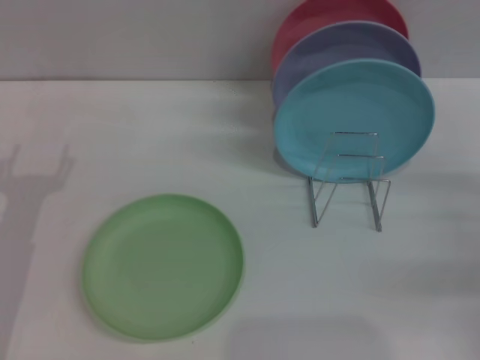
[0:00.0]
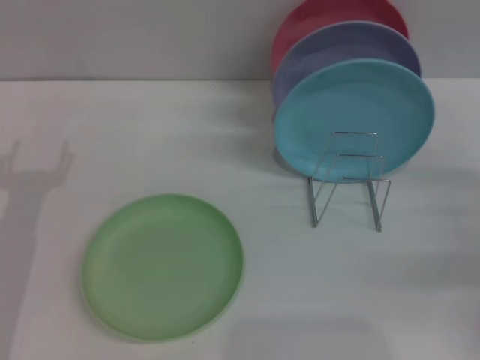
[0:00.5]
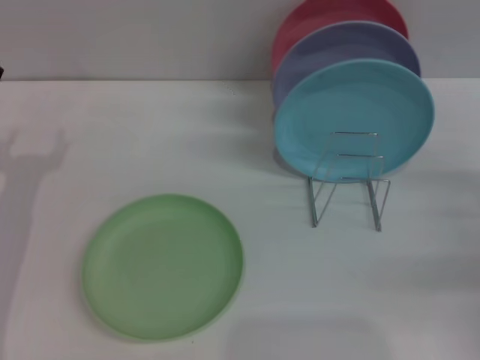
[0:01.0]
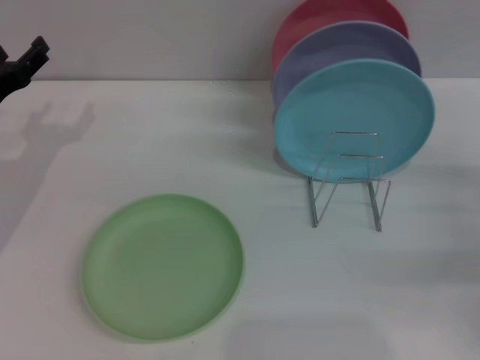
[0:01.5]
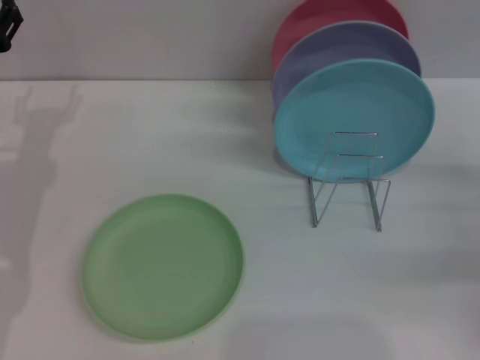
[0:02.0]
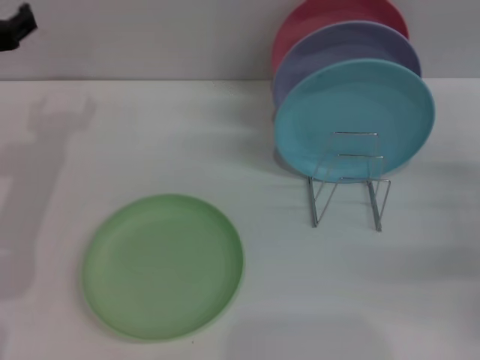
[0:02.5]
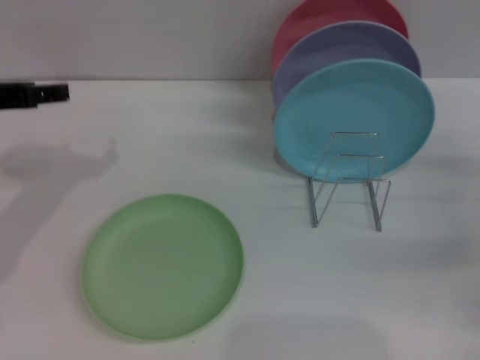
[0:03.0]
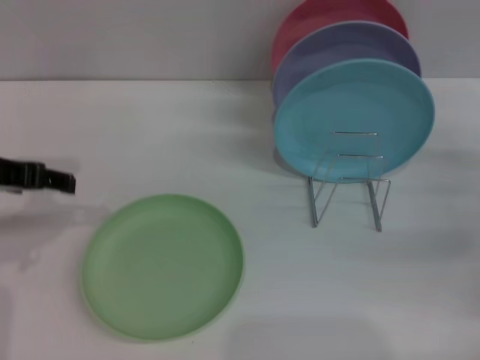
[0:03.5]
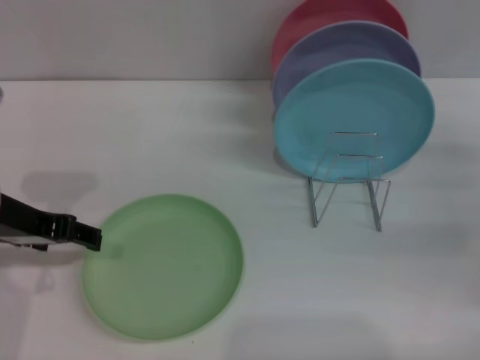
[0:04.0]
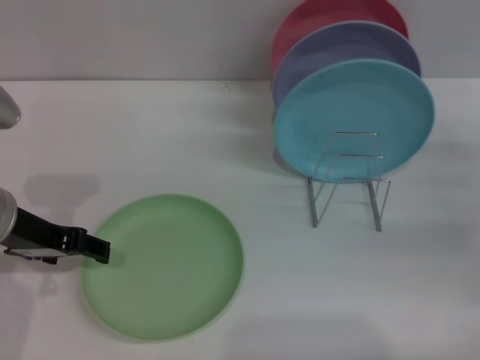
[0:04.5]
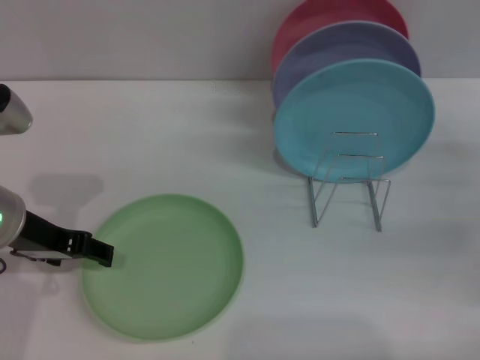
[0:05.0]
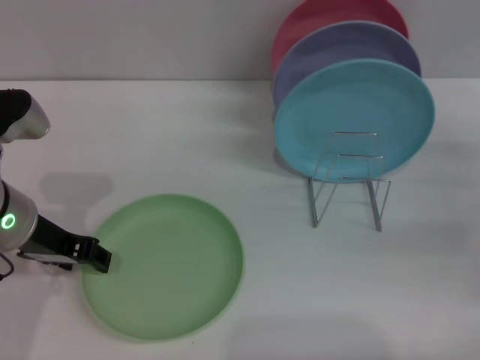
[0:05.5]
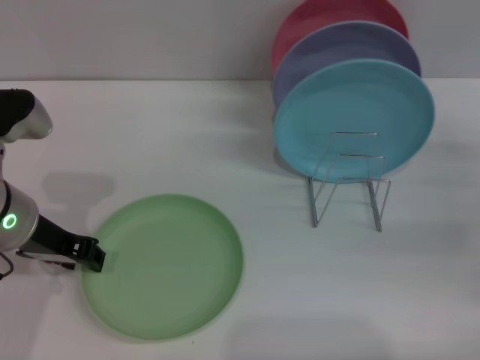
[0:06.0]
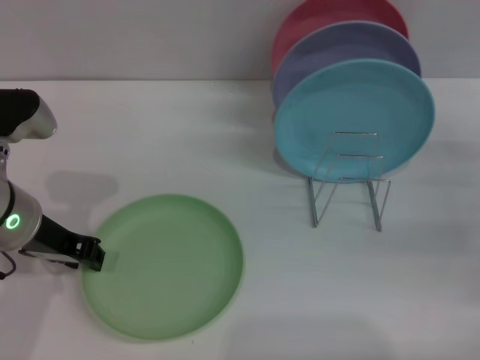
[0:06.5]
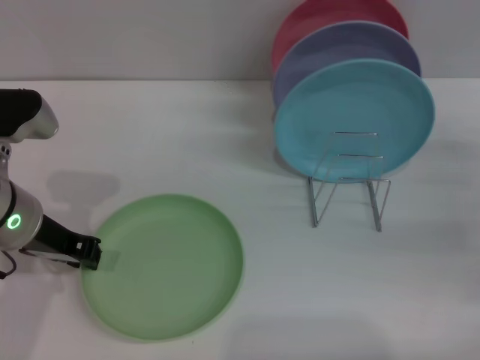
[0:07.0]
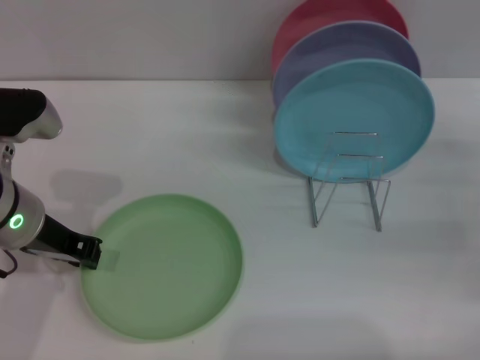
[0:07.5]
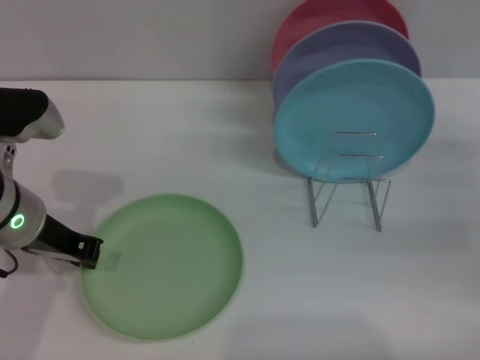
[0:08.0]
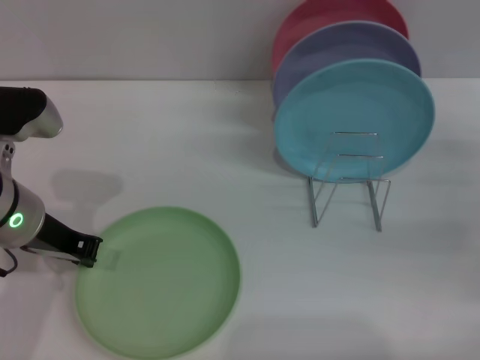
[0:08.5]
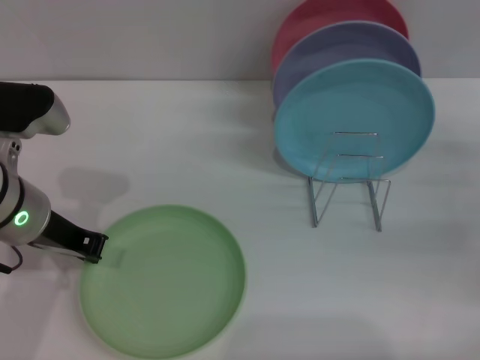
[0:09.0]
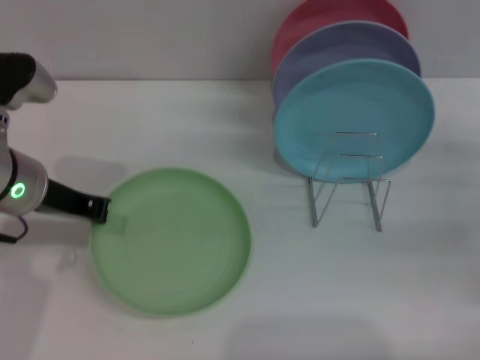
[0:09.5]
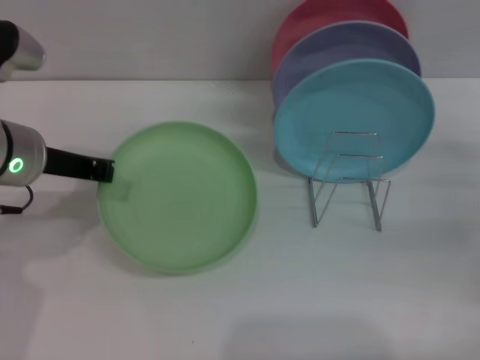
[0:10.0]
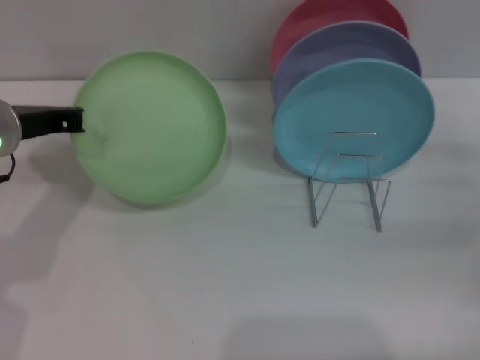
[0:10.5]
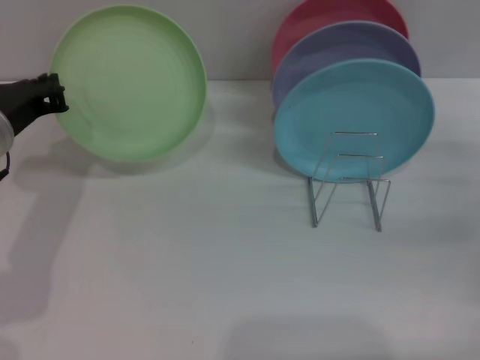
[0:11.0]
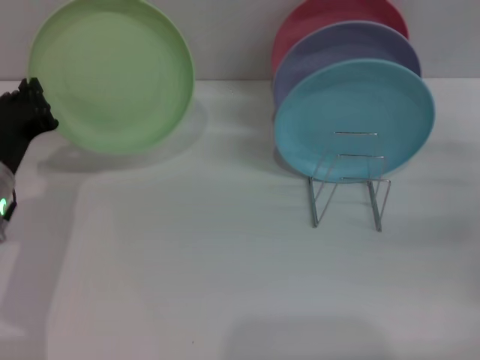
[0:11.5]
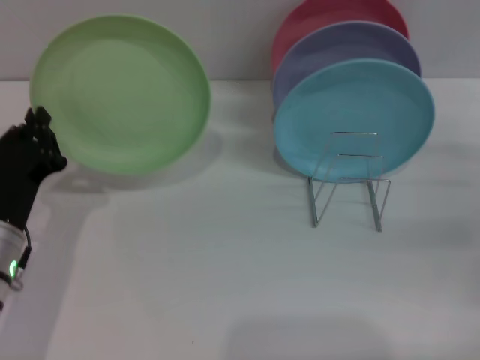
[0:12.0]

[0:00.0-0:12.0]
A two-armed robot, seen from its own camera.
Task of the whole recording: Grip the plate with one hand, pass it to the other, then set it on the shelf.
Step, 0:00.0 to 0:09.5: Pick up the plate with the left gripper.
0:02.0 to 0:04.0: The left gripper goes roughly 10 cm backward and upward.
0:04.0 to 0:06.0: The left gripper closes up.
0:06.0 to 0:08.0: The left gripper closes.
0:10.0 to 0:12.0: The left gripper travels downward and backward by approximately 15 cm.

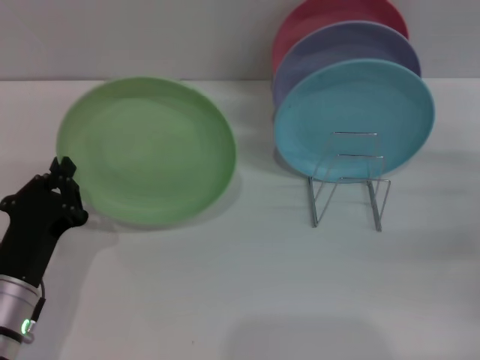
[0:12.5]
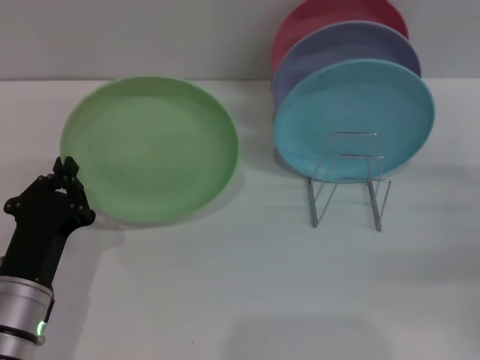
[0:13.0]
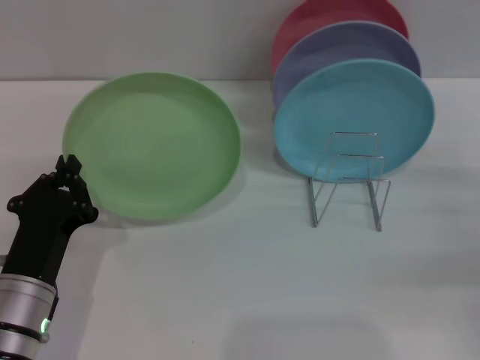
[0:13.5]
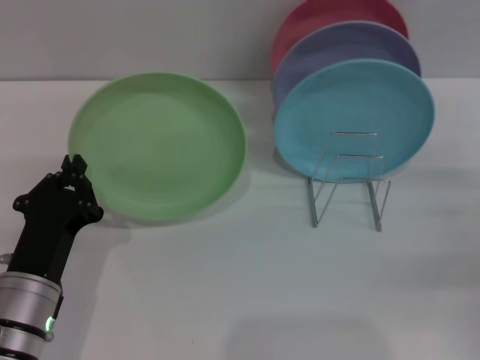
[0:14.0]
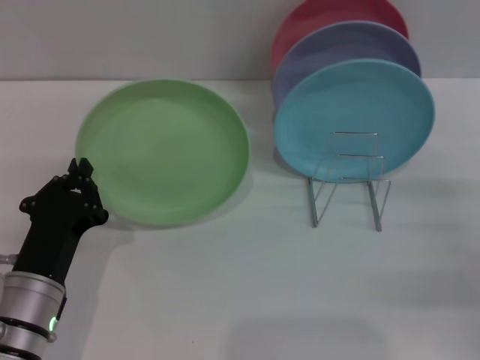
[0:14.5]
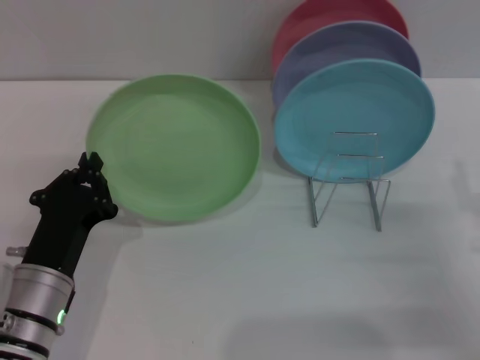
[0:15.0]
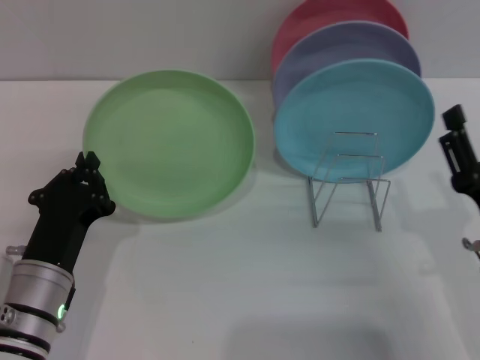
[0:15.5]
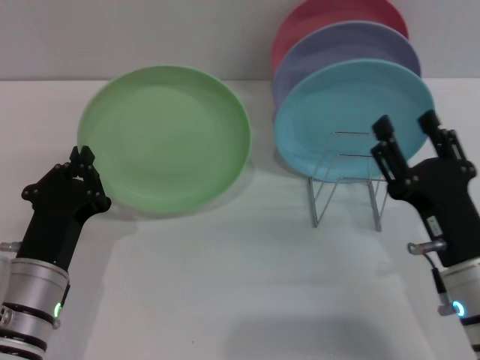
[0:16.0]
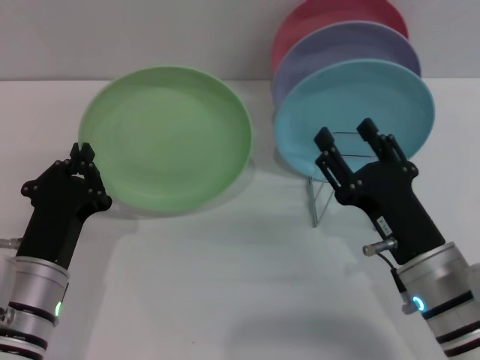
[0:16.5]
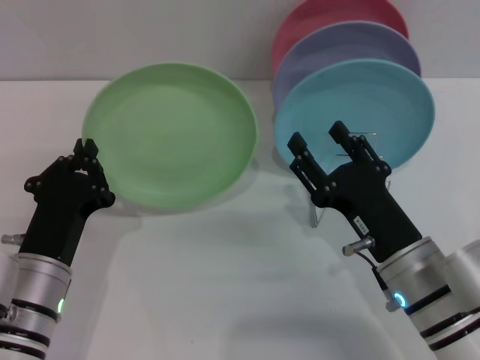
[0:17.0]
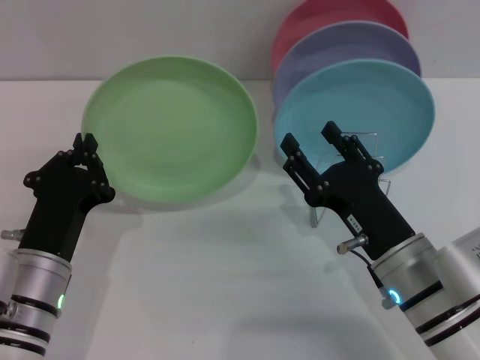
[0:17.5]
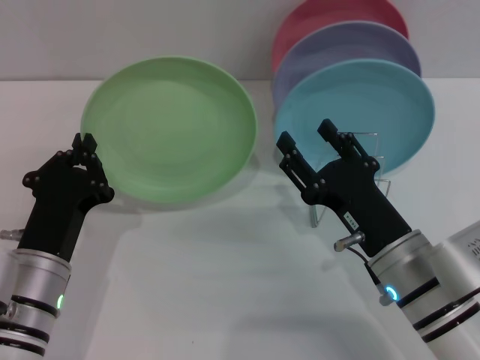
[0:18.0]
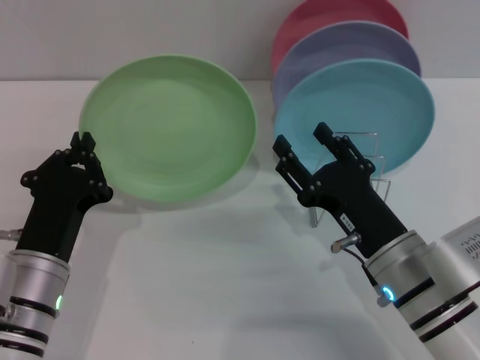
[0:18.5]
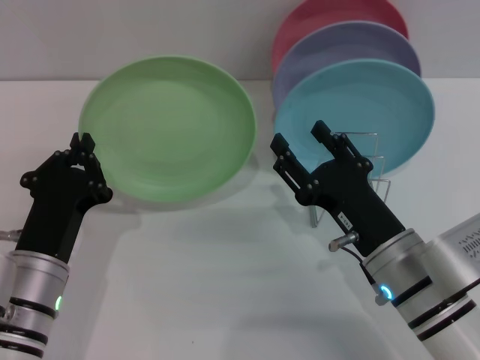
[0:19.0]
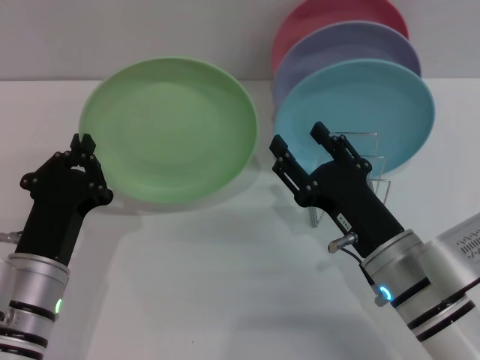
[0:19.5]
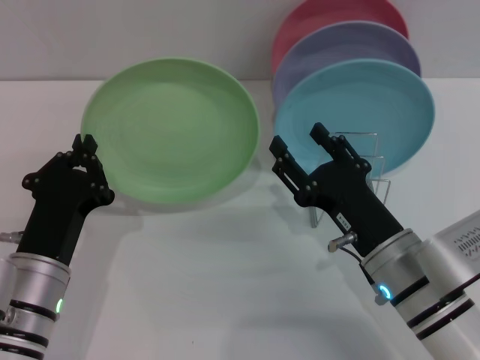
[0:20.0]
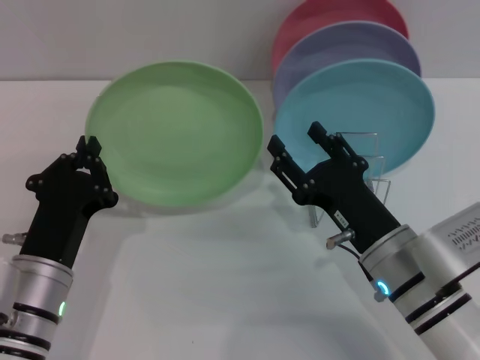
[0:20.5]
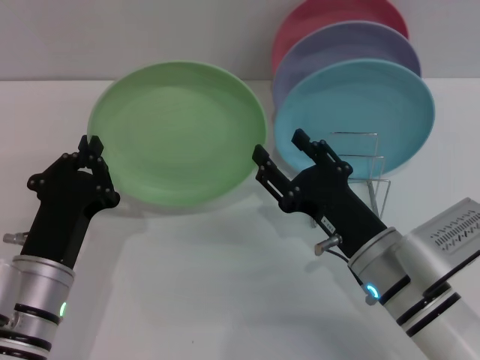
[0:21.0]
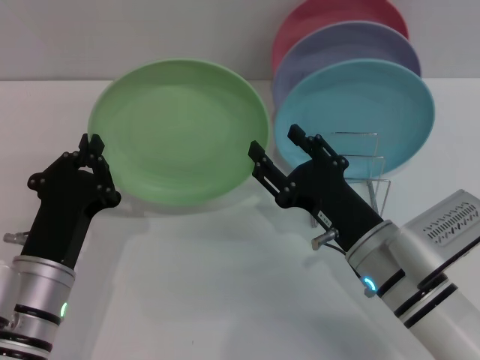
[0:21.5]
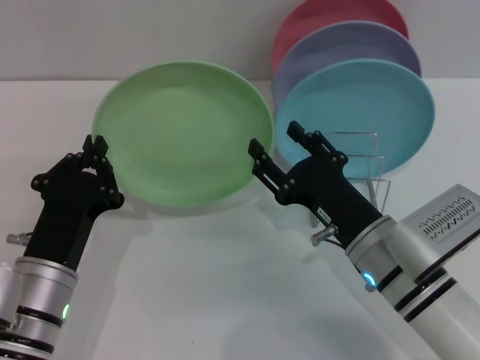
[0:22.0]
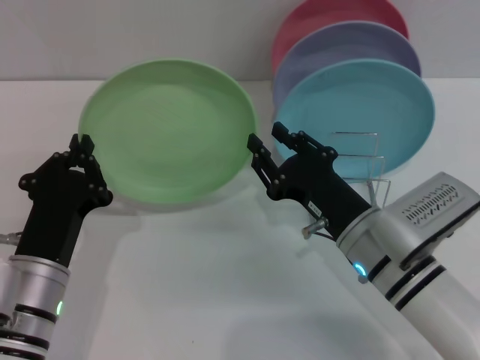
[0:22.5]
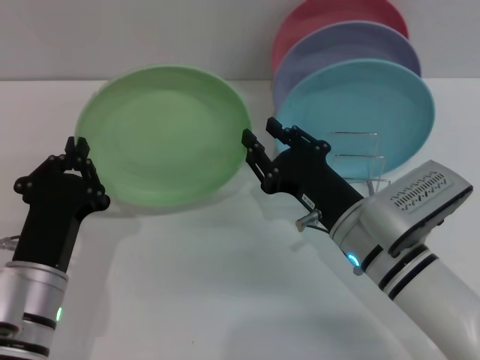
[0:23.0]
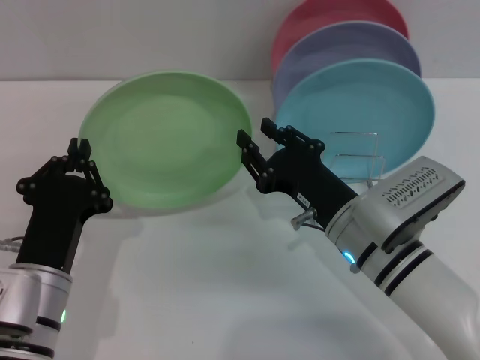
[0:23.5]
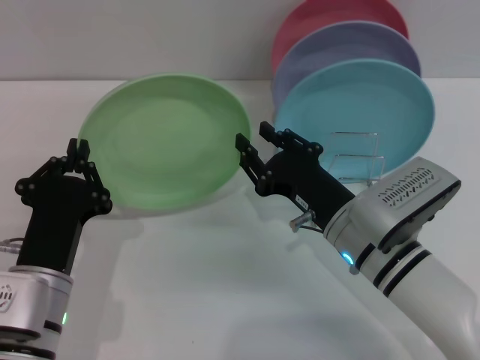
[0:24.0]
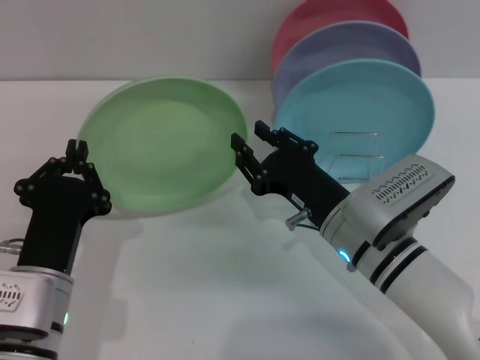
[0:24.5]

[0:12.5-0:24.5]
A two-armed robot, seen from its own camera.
Task of the whole recording: Grip the plate with one hand, pass it to the other, then set it on the shelf.
0:12.5 to 0:14.5: The right gripper changes place by some 5 cm.
0:14.5 to 0:16.5: The right gripper heads to the left, covering some 15 cm.
0:16.5 to 0:18.5: The grippers stay close to where they were, moving slightly.
0:18.5 to 0:20.5: Both grippers stay put.
0:20.5 to 0:24.5: There are only small adjustments of the grippers.

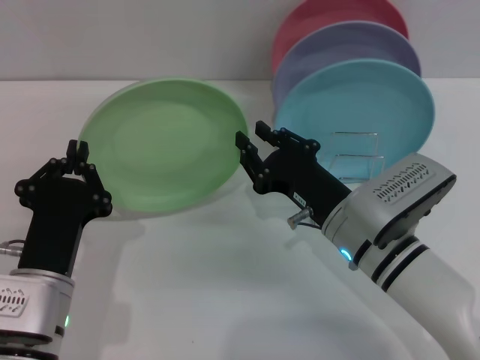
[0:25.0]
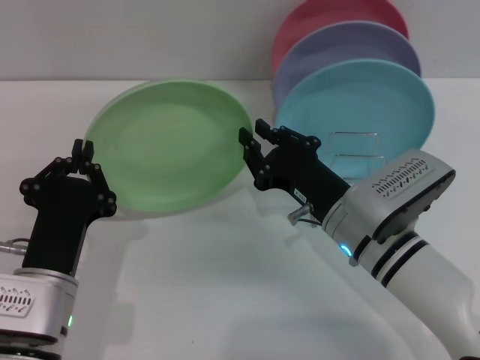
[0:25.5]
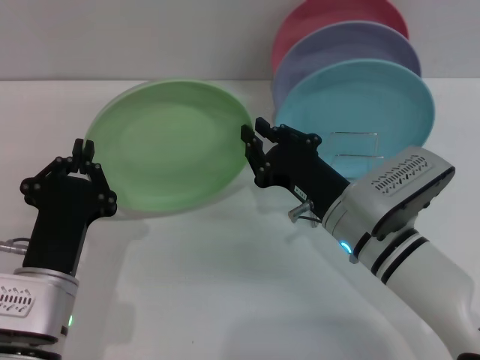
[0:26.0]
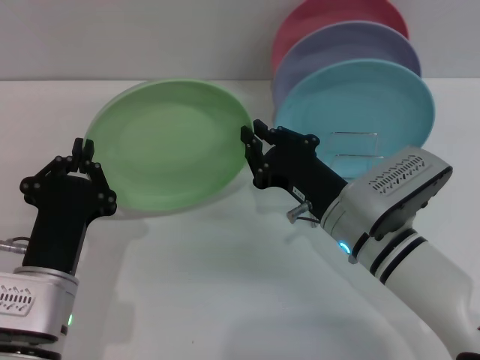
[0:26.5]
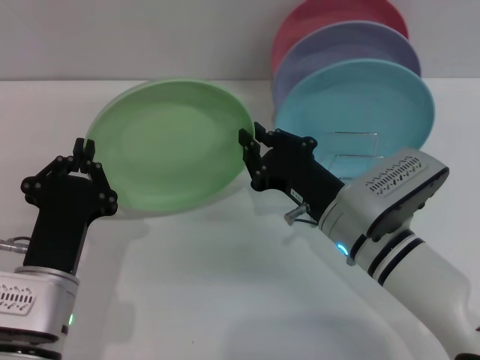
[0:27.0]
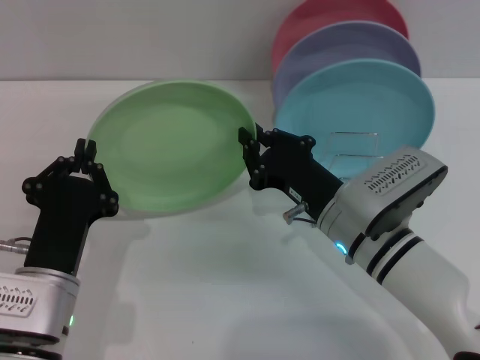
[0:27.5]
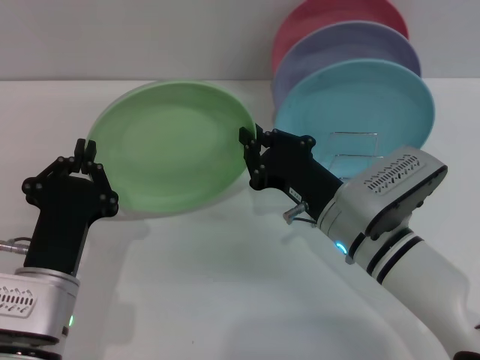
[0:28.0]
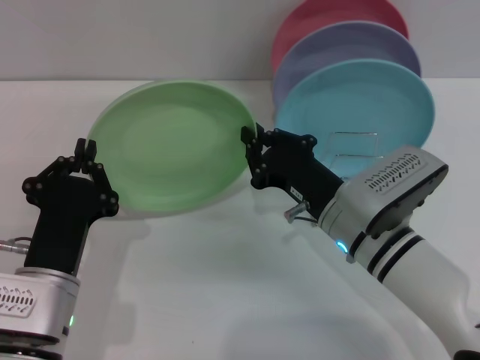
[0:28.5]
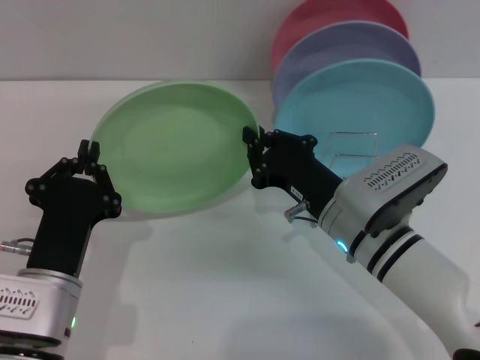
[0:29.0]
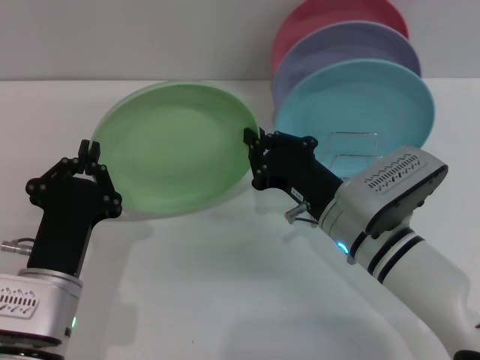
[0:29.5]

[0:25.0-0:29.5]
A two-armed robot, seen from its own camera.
Task of the whole recording: Grip the plate with one hand, pass it to the other, then set it on the shelf.
0:25.0 to 0:29.5: Both grippers stay put.
